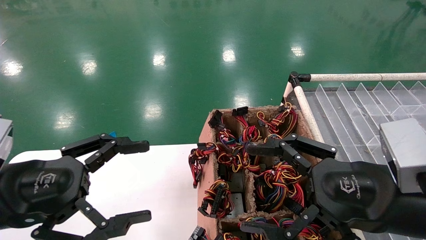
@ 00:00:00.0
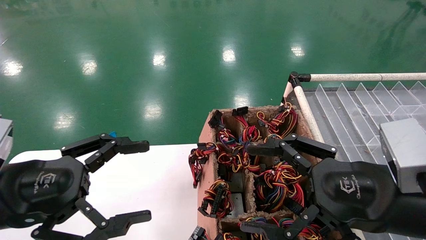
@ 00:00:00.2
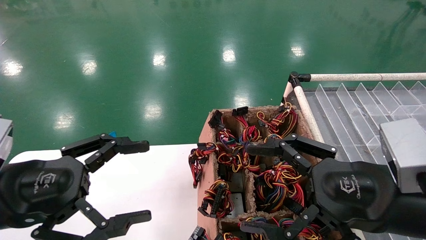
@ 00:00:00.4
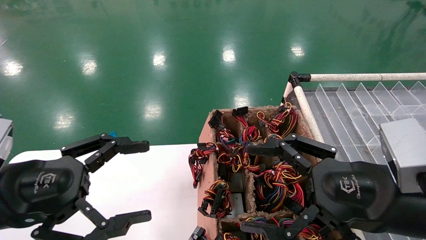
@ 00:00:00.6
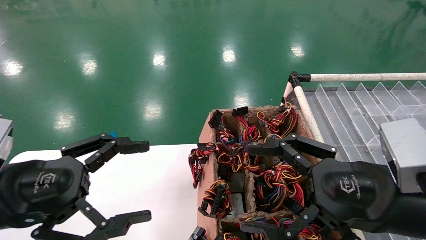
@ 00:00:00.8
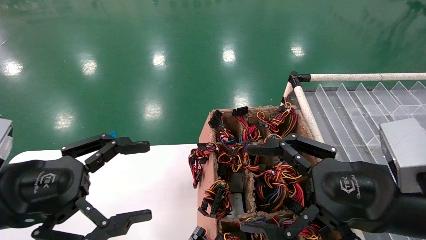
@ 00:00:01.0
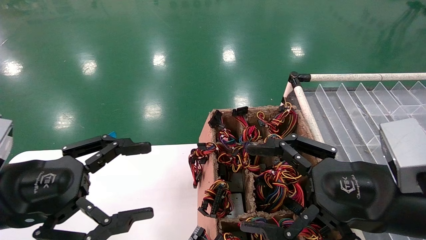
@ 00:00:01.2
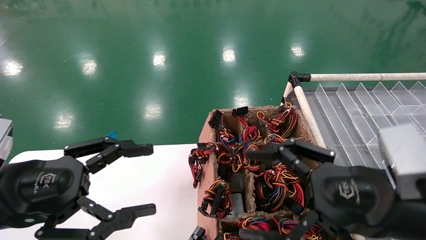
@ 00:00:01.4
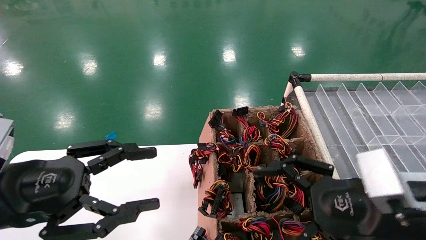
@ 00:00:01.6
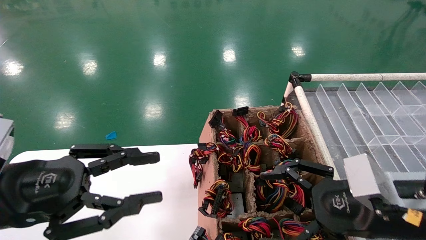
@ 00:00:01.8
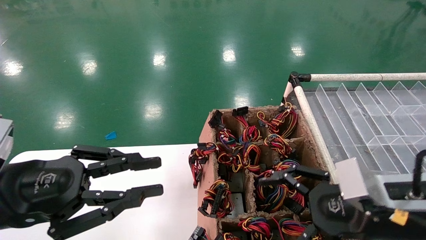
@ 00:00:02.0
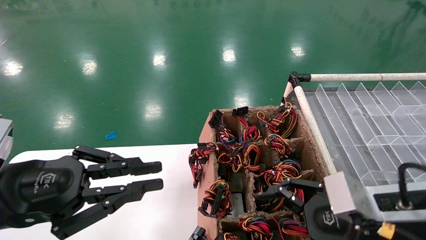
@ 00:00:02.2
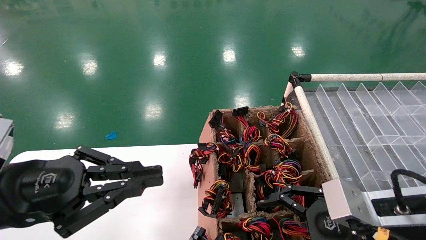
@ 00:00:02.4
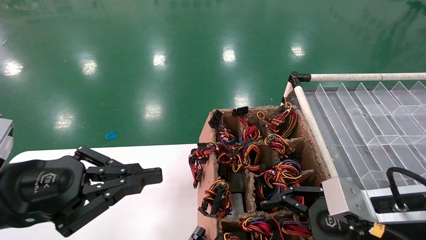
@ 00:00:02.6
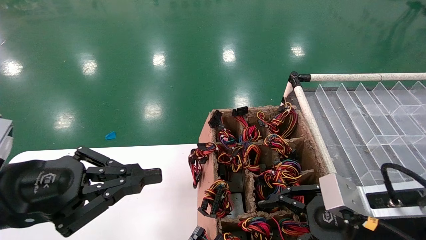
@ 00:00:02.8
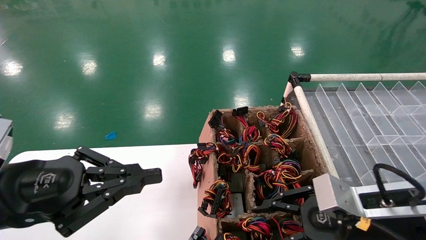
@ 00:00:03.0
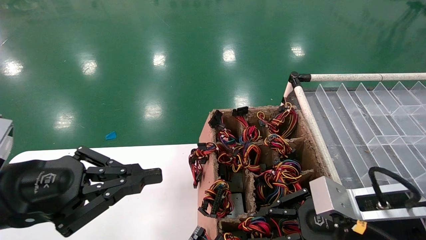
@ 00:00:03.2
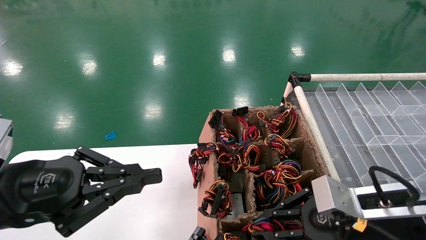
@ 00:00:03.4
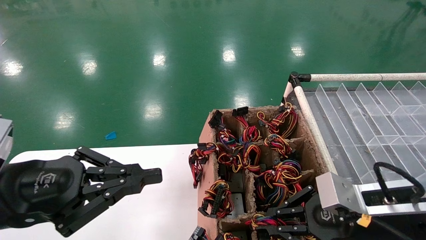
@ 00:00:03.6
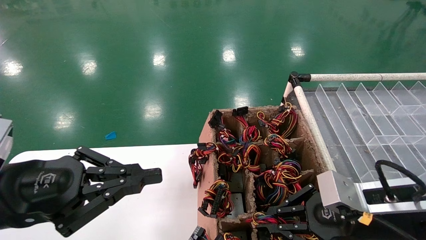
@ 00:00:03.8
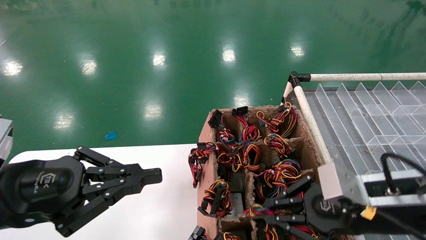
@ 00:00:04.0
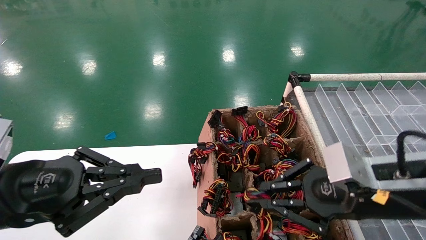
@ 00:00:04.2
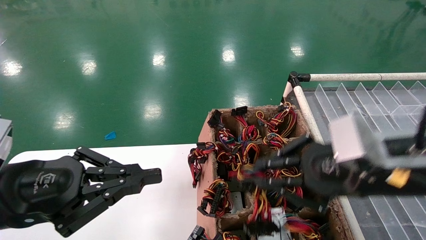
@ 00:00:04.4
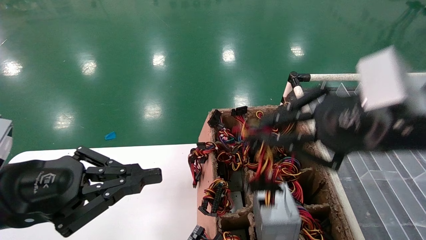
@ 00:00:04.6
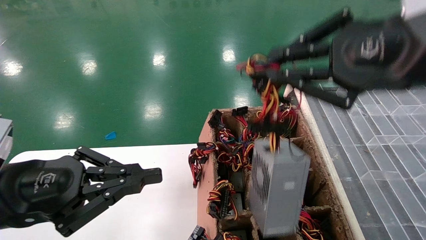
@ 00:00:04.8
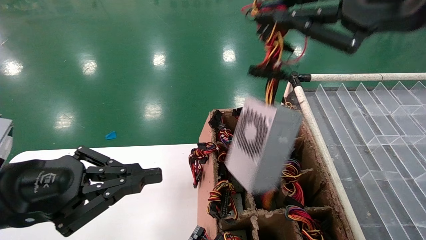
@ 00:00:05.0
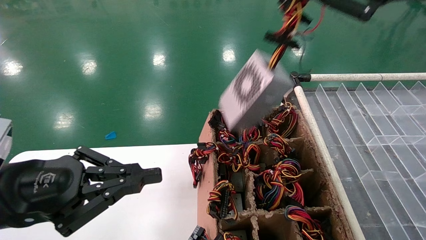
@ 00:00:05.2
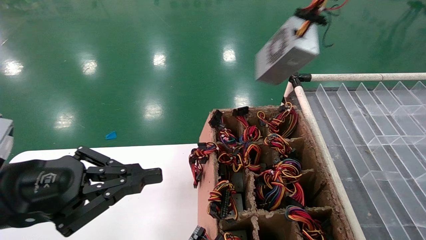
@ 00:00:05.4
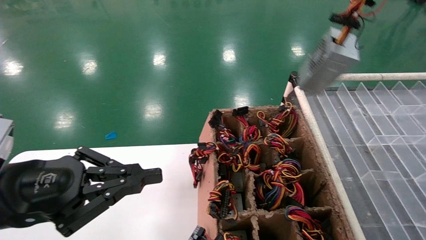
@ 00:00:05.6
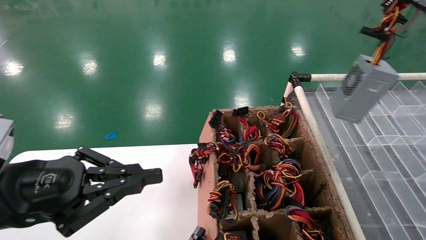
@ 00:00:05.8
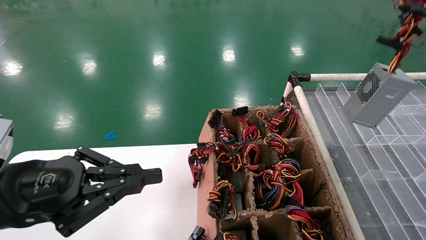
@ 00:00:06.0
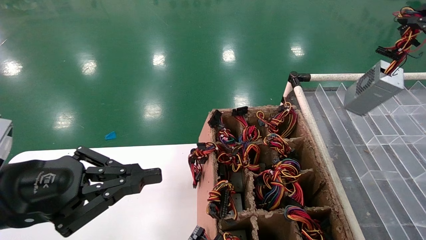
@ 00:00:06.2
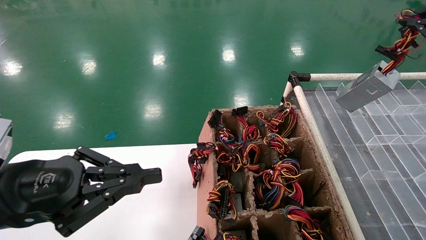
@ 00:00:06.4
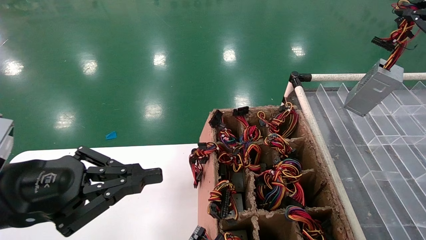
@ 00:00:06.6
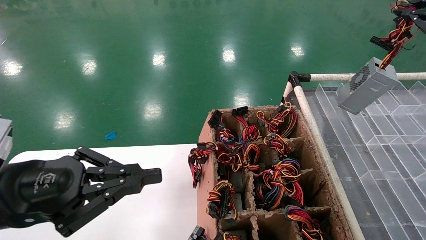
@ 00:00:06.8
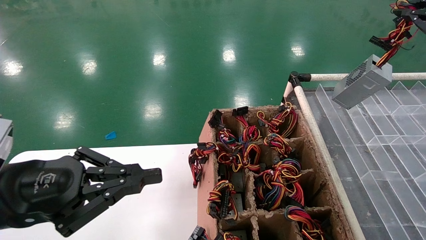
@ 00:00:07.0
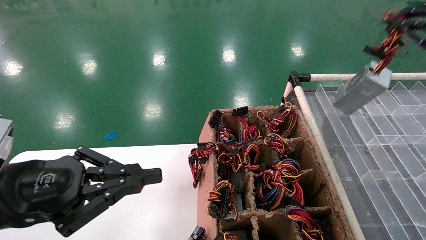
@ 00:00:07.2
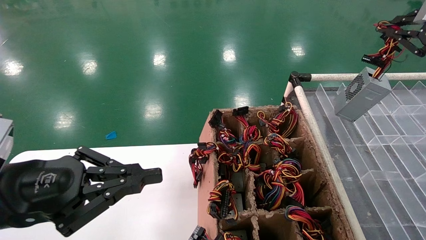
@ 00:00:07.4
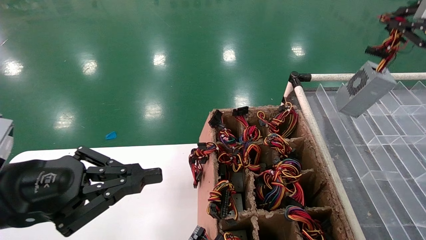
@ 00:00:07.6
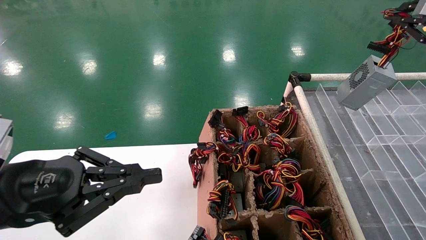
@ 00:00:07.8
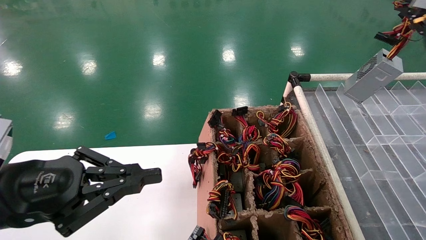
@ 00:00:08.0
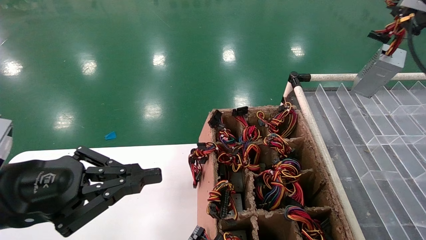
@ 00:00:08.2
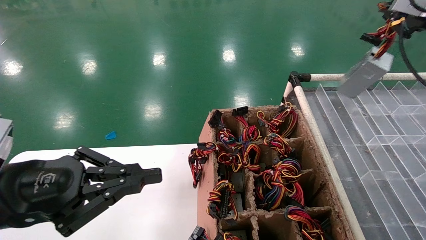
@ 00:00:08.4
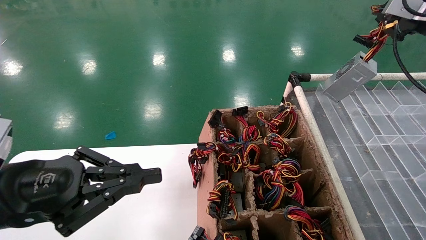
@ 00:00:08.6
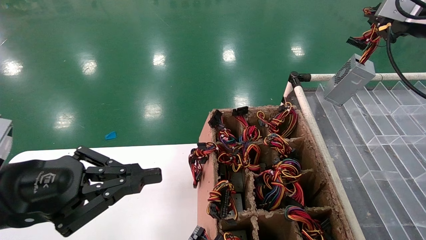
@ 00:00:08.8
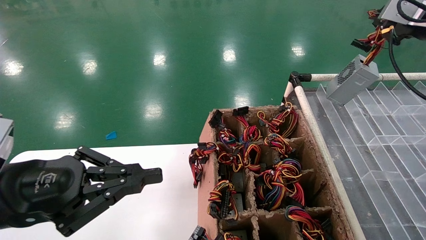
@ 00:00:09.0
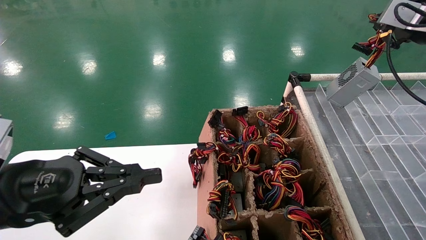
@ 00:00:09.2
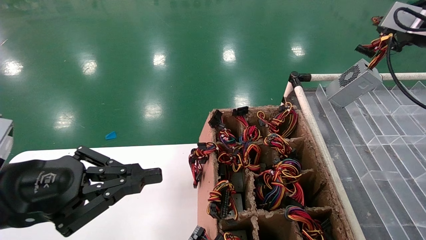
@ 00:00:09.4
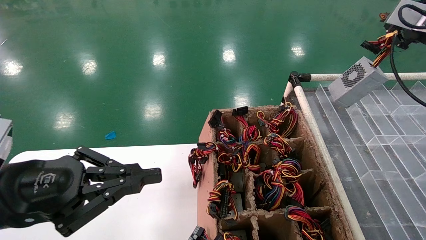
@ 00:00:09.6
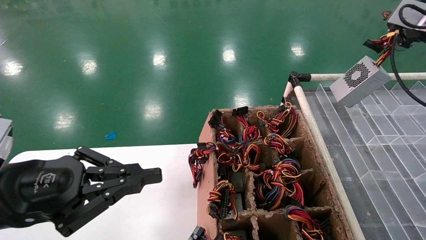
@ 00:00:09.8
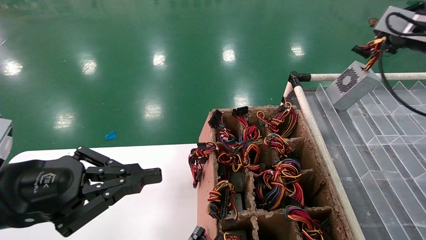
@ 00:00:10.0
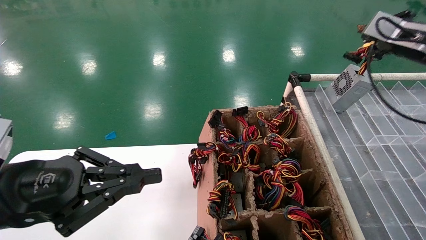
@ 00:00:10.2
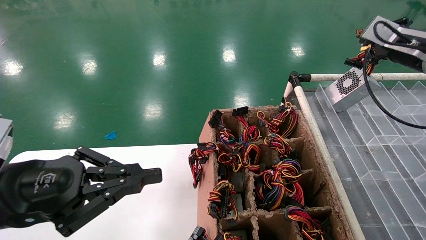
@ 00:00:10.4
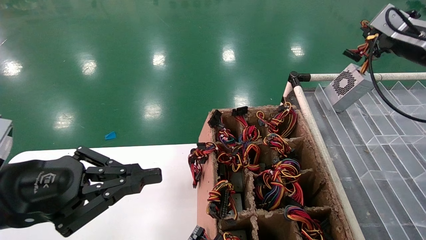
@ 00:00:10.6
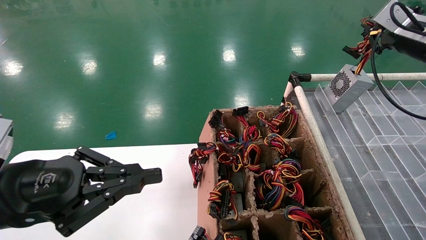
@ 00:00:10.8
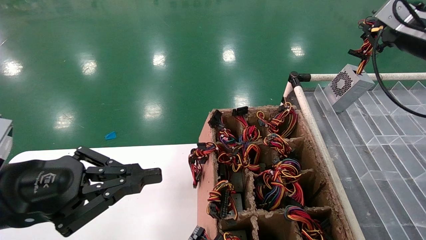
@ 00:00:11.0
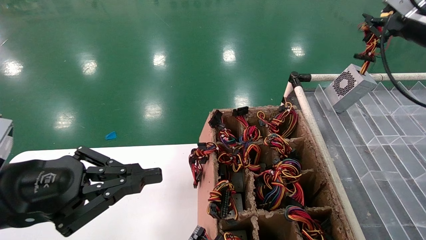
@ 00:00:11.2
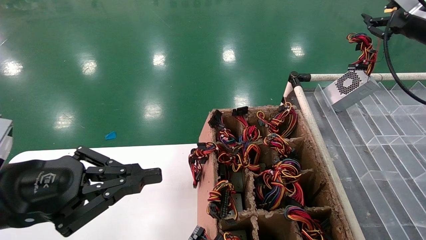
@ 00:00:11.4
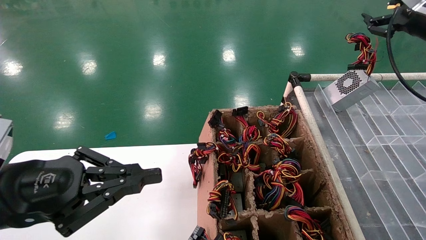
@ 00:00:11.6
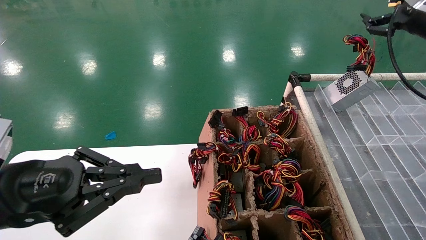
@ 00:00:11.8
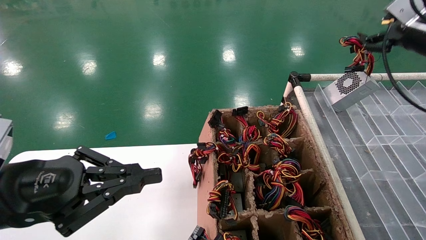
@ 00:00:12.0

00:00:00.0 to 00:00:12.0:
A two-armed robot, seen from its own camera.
Step, 00:00:01.8 to 00:00:03.8: Grab the main unit power supply from the containment box.
00:00:00.0 to 00:00:01.6: The grippers move only a little.
00:00:01.6 to 00:00:03.0: The right gripper shifts by approximately 5 cm, and closes. Meanwhile the left gripper closes.
00:00:03.0 to 00:00:04.4: The right gripper travels upward by some 10 cm, and closes up.
00:00:04.4 to 00:00:06.0: The right gripper moves to the right and upward, some 25 cm.
00:00:06.0 to 00:00:07.6: The right gripper goes roughly 5 cm forward.
00:00:07.6 to 00:00:09.0: The right gripper heads forward, covering roughly 5 cm.
00:00:09.0 to 00:00:10.4: The right gripper shifts by about 5 cm.
00:00:10.4 to 00:00:12.0: The right gripper opens its fingers.

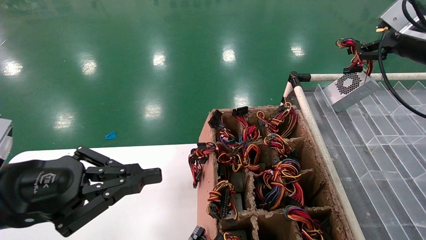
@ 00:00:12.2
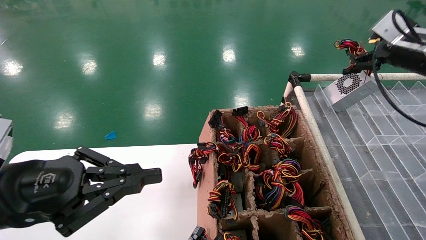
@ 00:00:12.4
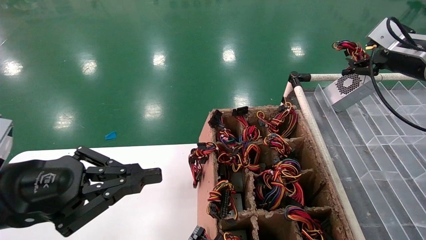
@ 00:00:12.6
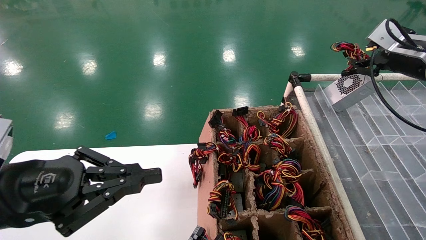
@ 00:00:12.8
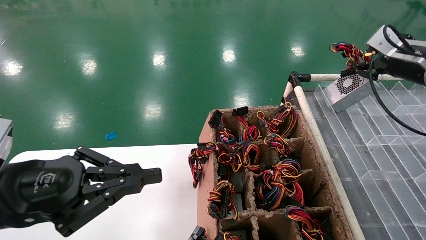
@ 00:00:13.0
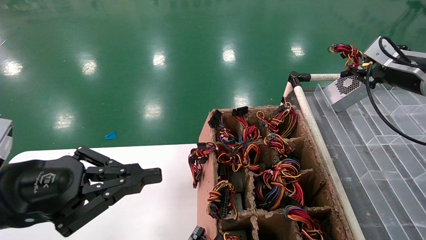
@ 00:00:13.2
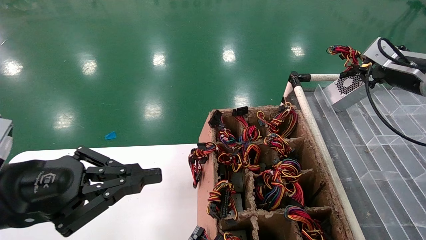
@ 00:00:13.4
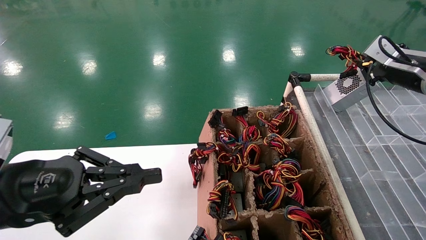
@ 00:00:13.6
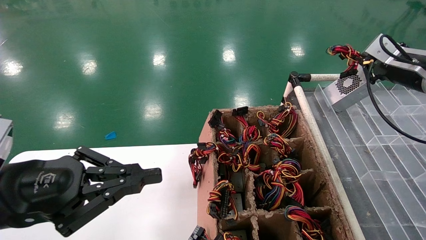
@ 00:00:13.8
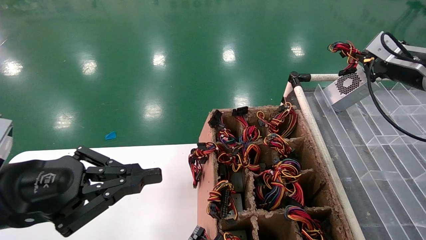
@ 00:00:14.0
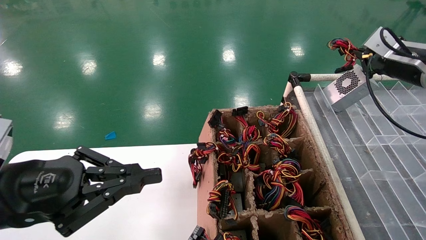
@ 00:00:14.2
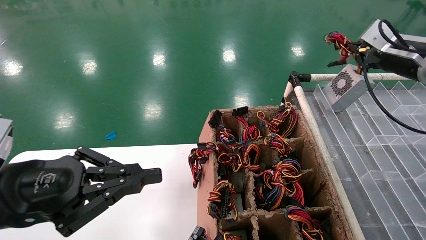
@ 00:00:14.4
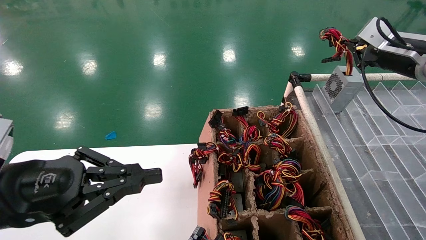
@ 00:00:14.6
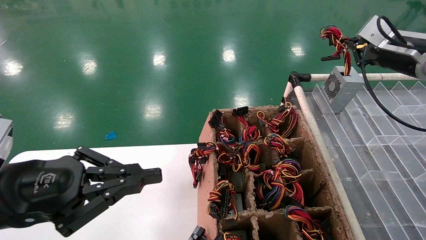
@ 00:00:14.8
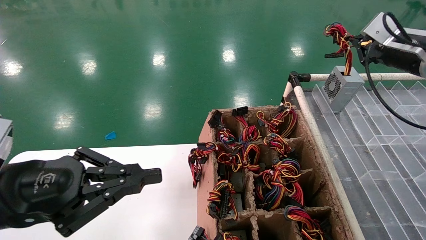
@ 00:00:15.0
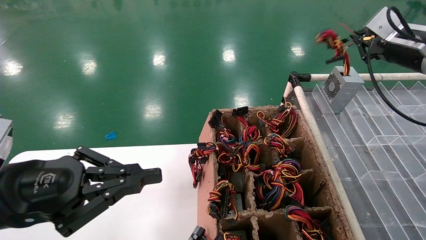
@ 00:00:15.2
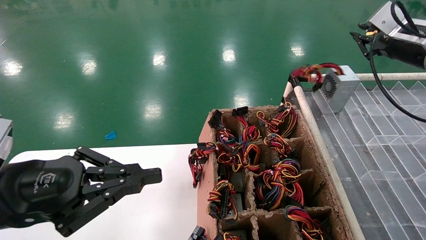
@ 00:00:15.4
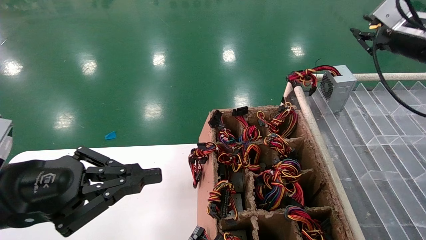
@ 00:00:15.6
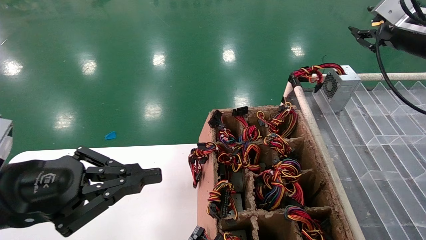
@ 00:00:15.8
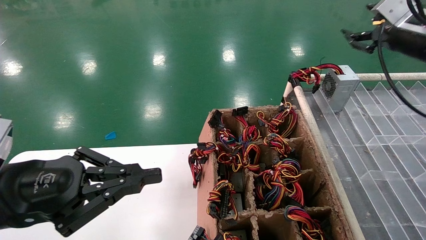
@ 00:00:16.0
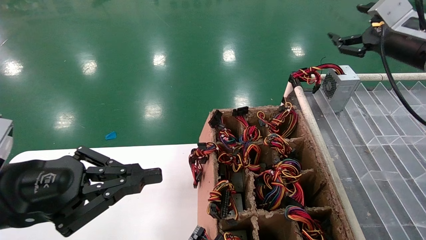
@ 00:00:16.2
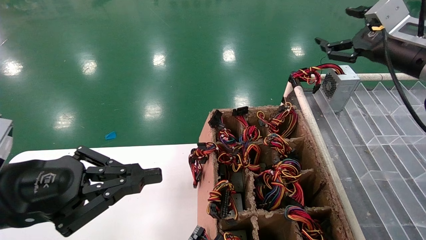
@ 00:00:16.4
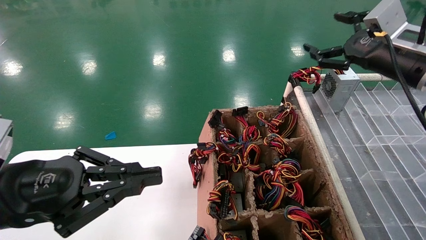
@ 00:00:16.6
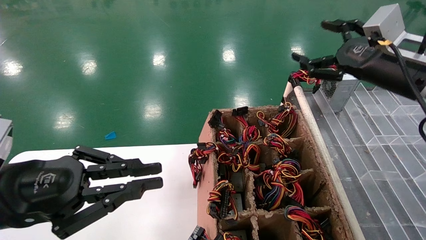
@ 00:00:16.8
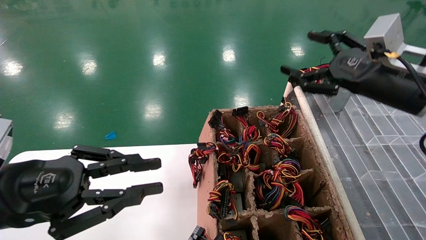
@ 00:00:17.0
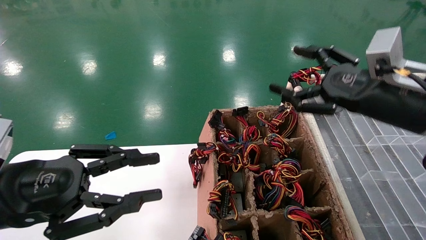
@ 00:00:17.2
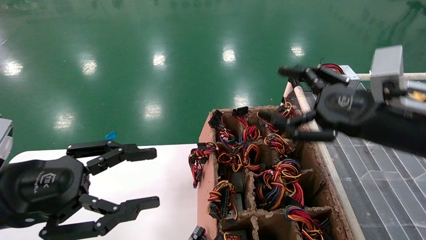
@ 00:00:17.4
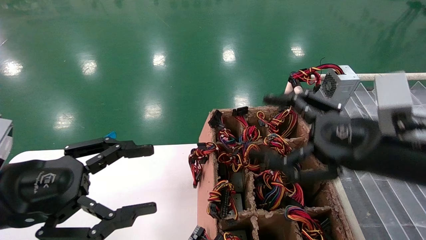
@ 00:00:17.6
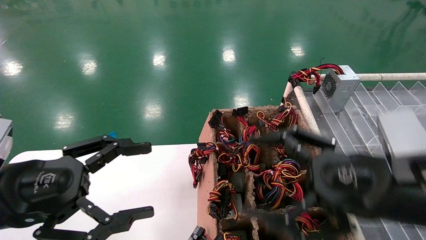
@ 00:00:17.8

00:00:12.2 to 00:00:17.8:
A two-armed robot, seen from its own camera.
Step, 00:00:12.2 to 00:00:16.4: Place the main unit power supply in the designated area.
00:00:12.2 to 00:00:13.6: The right gripper closes its fingers.
00:00:13.6 to 00:00:15.0: The grippers move only a little.
00:00:15.0 to 00:00:16.4: The right gripper shifts by some 5 cm, and opens up.
00:00:16.4 to 00:00:17.8: The right gripper moves backward, to the left and downward, roughly 25 cm. Meanwhile the left gripper opens.
